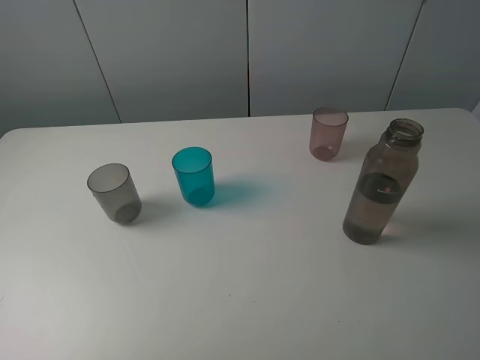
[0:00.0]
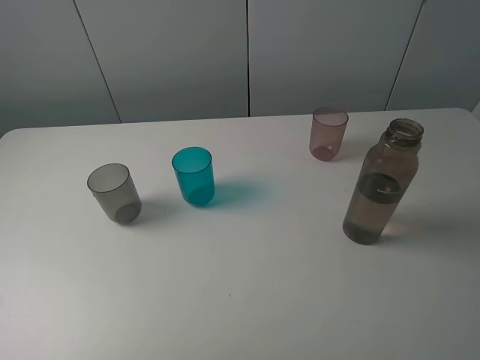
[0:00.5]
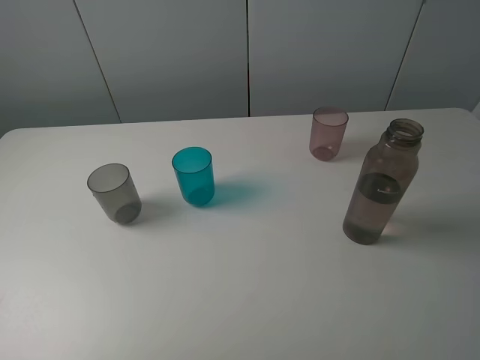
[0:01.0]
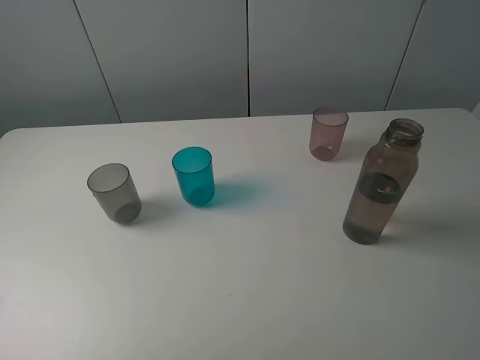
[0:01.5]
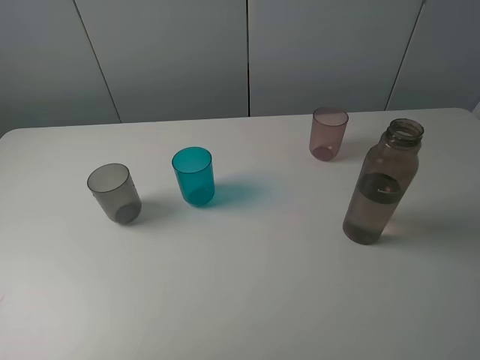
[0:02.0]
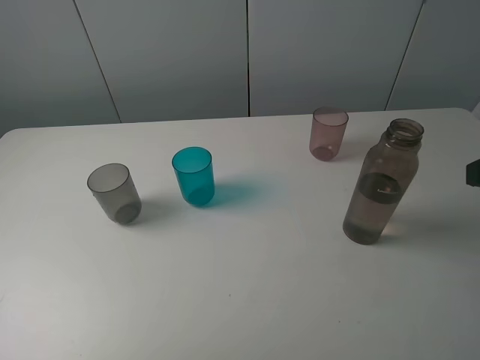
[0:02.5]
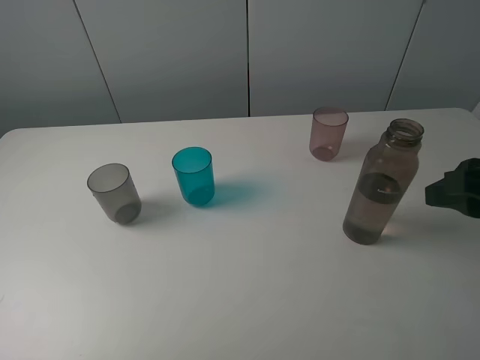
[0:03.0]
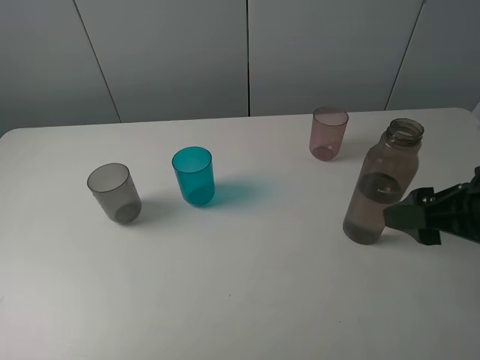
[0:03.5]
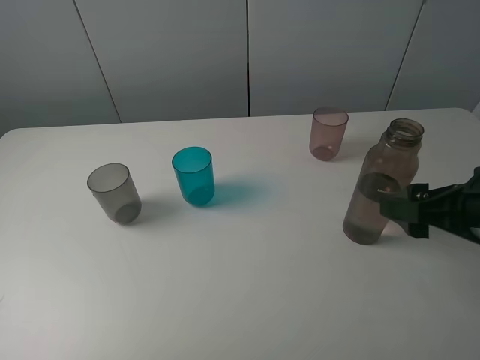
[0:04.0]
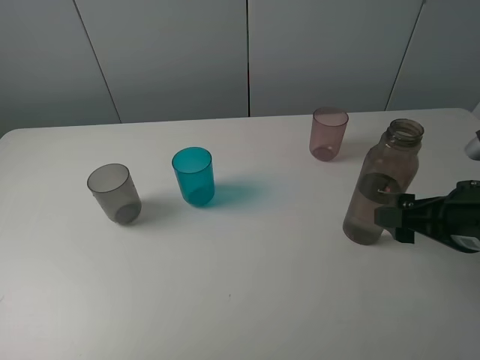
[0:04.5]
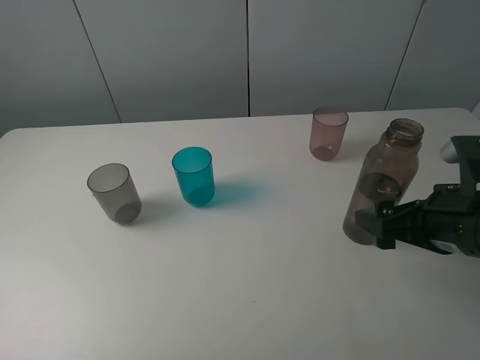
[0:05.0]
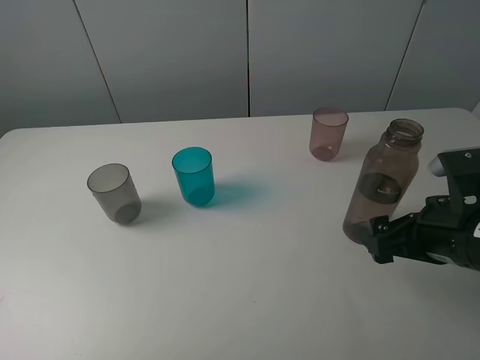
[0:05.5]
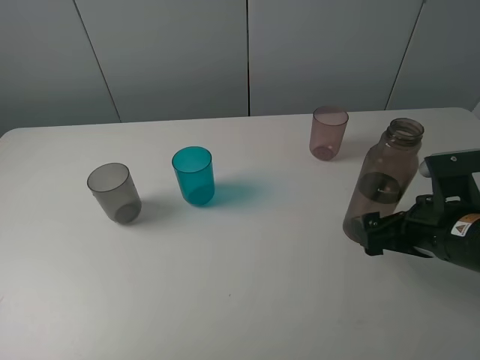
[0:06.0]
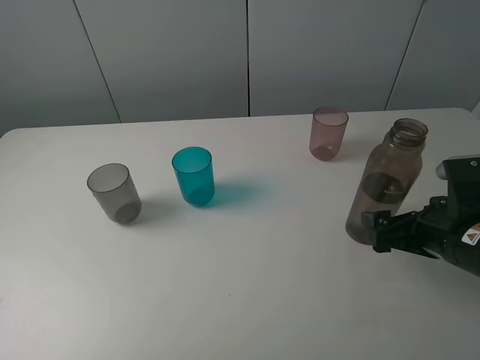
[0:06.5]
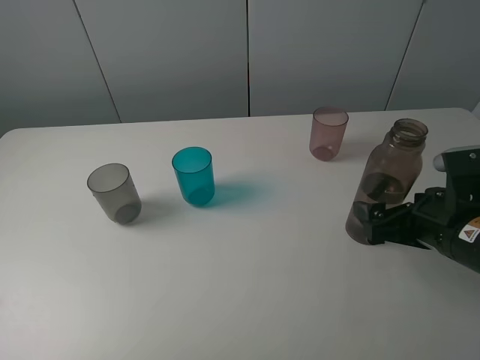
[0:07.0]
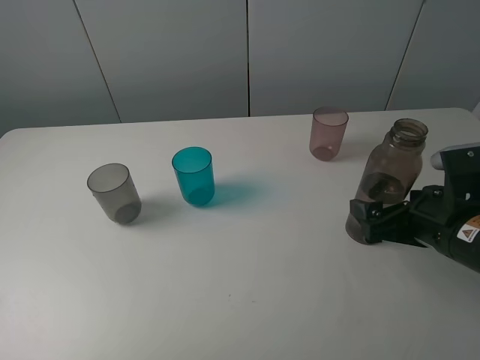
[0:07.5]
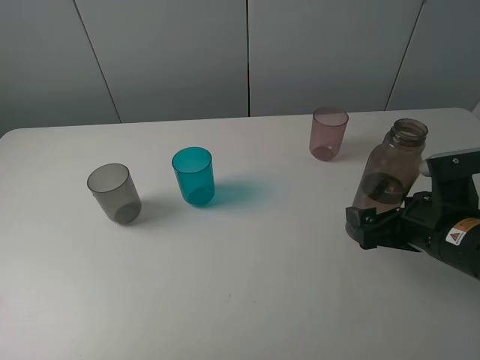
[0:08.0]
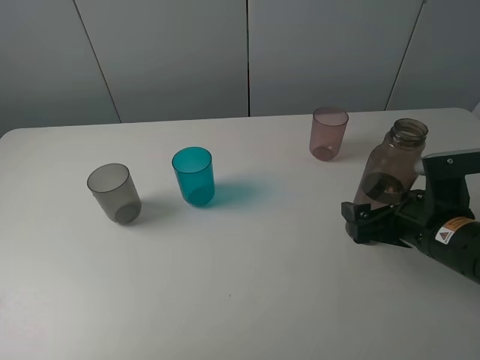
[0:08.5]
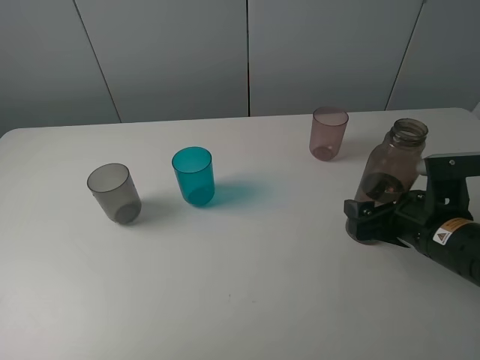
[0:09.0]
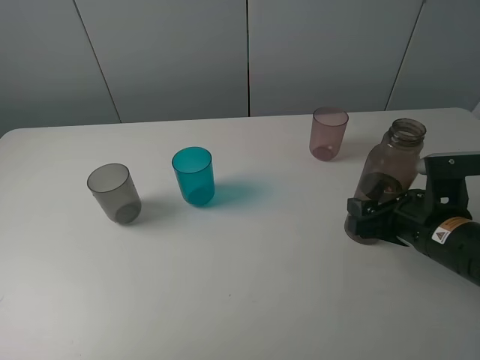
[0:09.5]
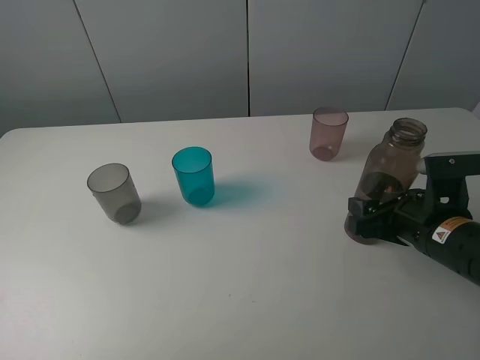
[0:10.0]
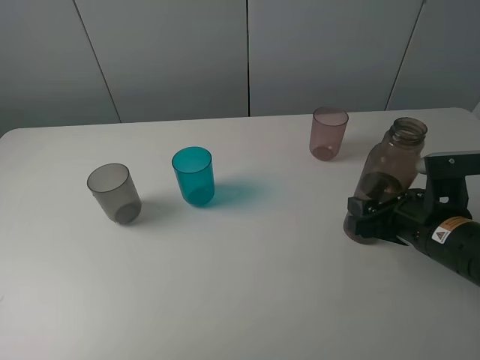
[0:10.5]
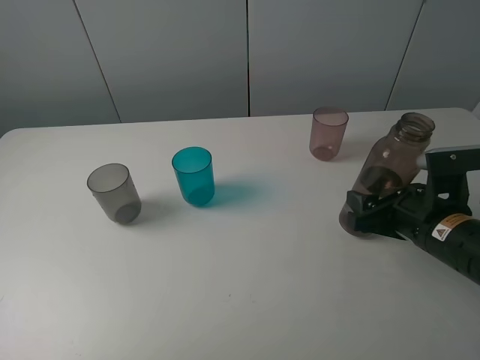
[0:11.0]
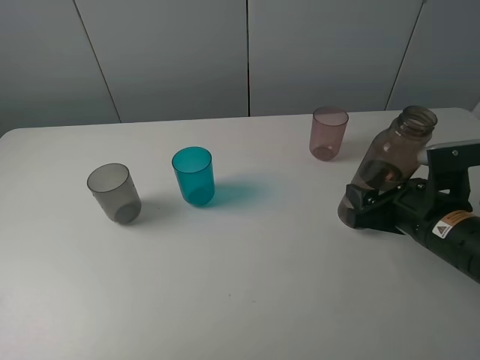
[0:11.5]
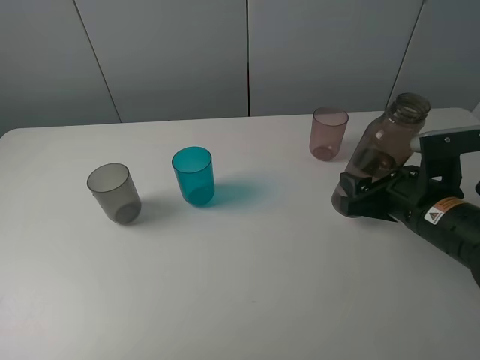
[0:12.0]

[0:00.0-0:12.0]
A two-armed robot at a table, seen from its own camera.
Task of the whole recording: pick up the bottle filled with water and pour water into the middle cup of the three cups.
Step, 0:00.0 to 0:10.0: Grasp the transparent bottle with the right gripper.
0:02.0 to 0:04.0: The right gripper heads downward, covering about 15 cm, and opens.
0:04.0 to 0:06.0: The right gripper is displaced downward by approximately 5 cm.
0:06.0 to 0:08.0: The grippers move only a little.
0:08.0 to 0:10.0: The right gripper closes its fingers.
0:10.0 to 0:12.0: The grippers make only small movements.

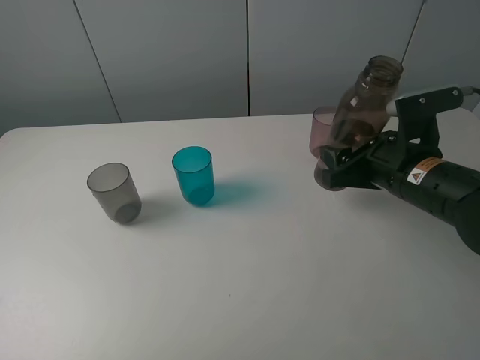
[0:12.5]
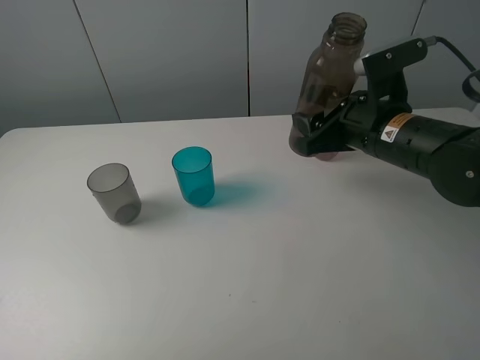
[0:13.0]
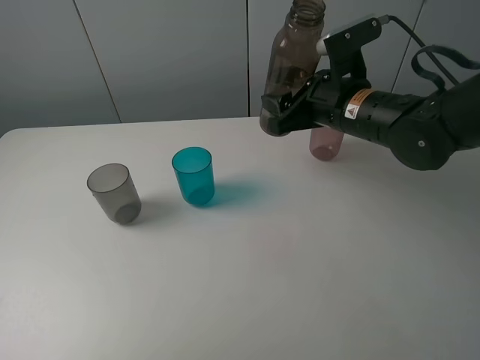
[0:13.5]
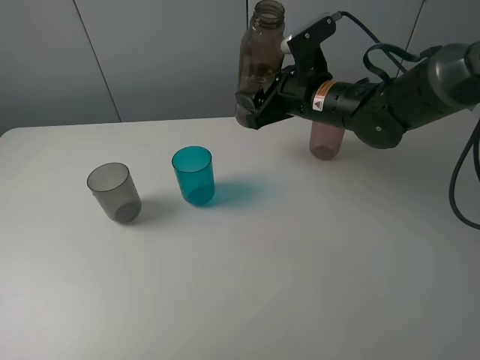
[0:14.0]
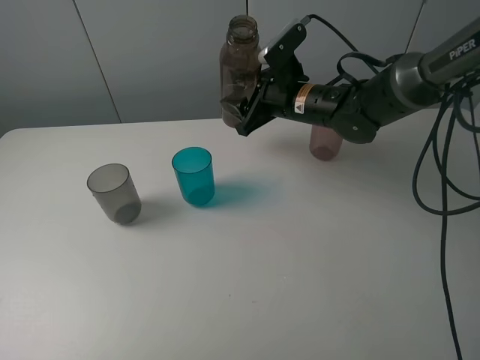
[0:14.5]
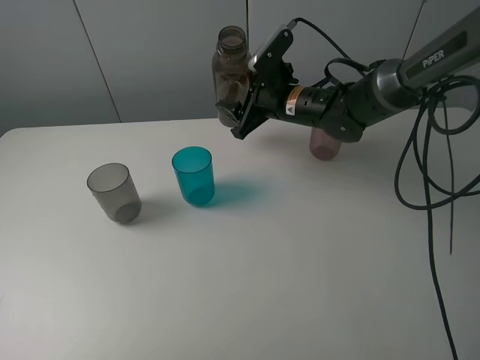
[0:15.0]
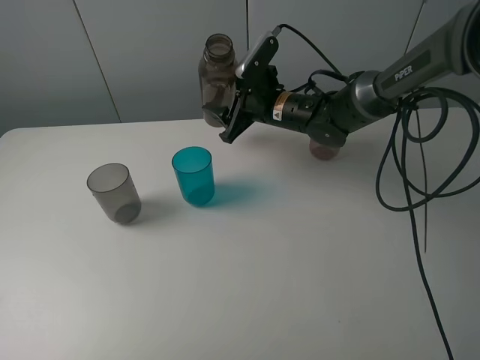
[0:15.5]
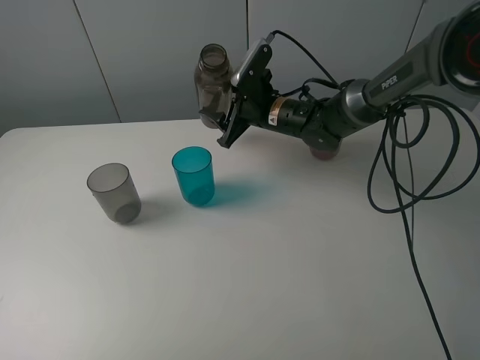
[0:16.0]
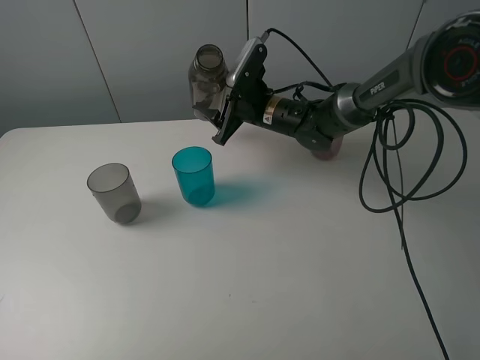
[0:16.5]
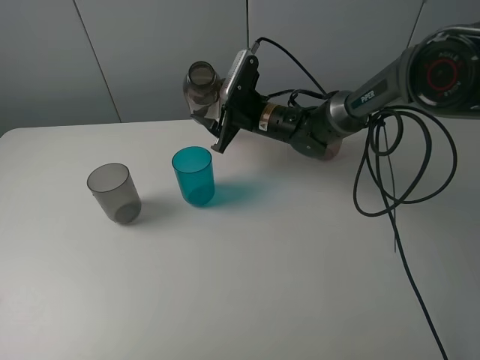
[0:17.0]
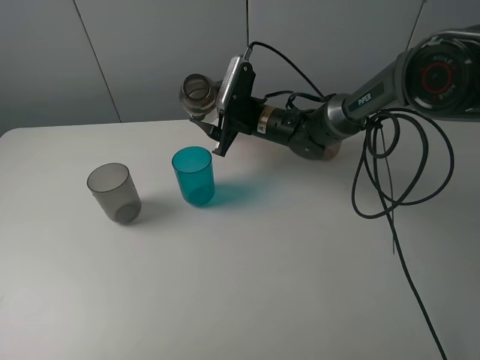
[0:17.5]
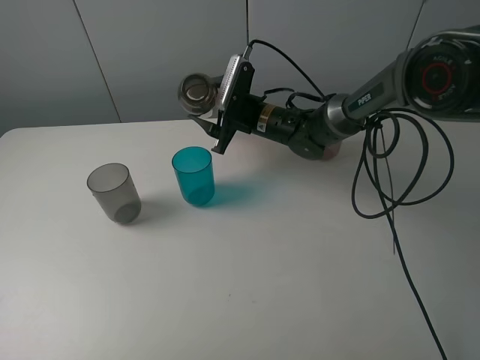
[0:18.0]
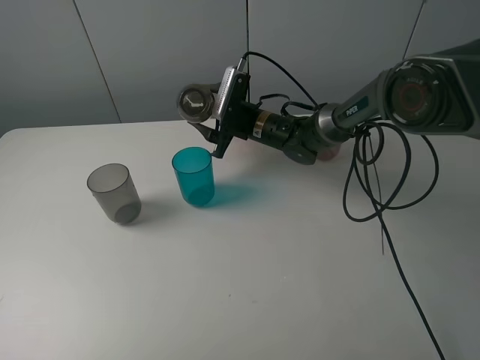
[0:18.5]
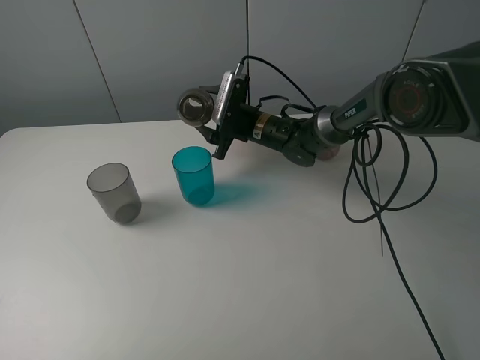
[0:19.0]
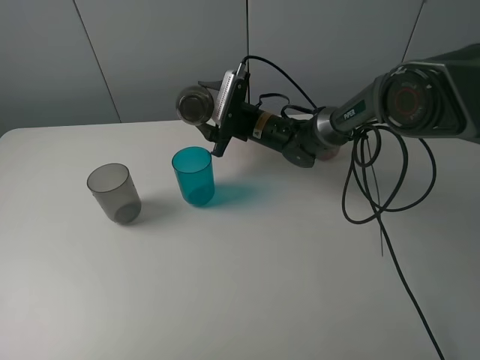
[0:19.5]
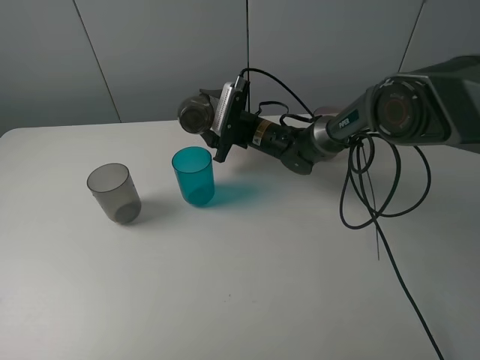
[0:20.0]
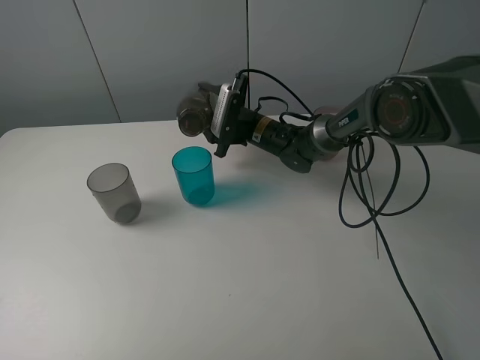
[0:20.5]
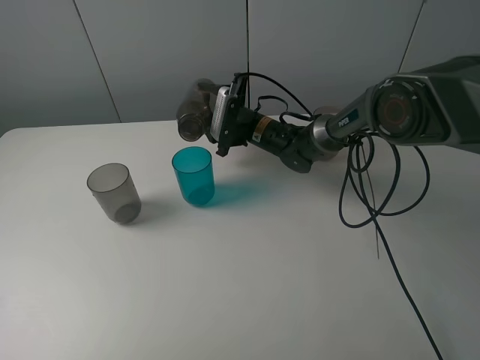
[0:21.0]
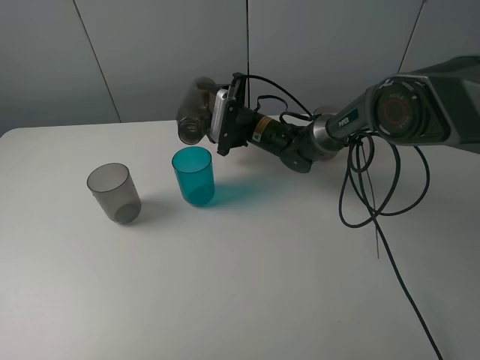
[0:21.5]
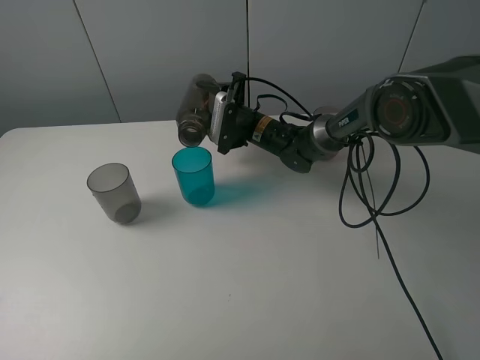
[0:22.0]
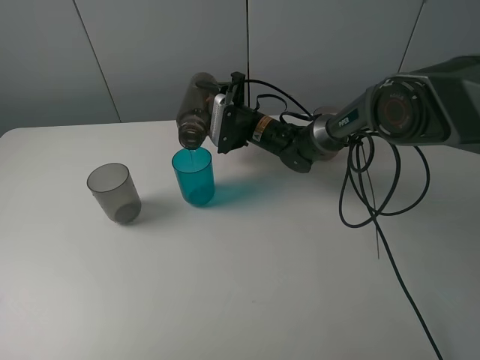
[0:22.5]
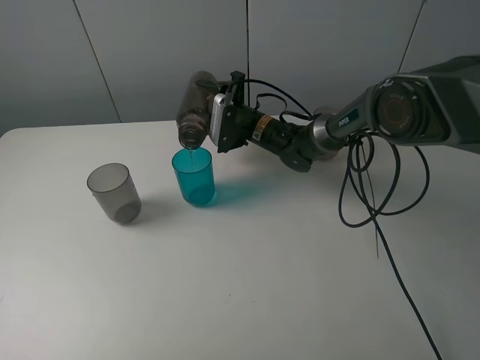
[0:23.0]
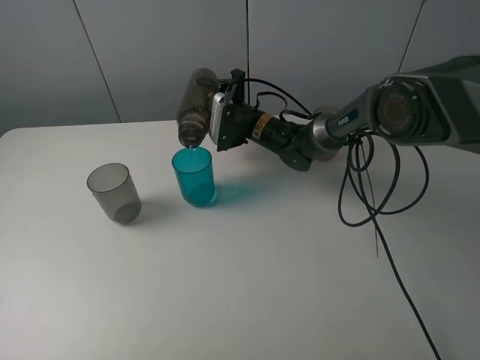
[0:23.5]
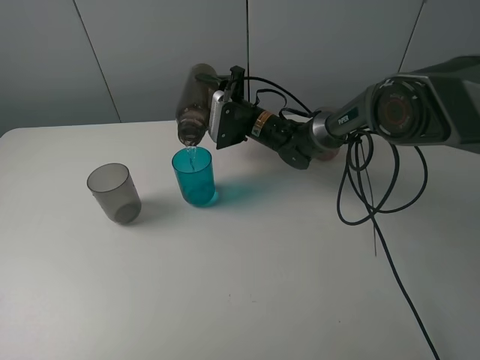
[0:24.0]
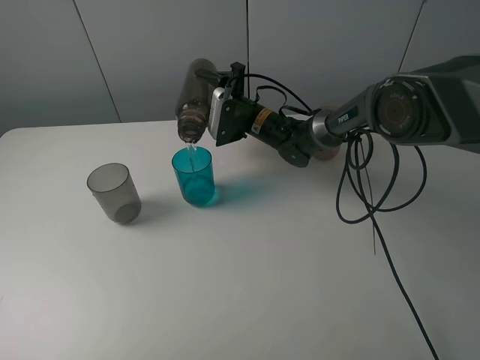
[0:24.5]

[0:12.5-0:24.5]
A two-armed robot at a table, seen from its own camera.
Task of the whole recording: pick up the bottle filled with water and pour water into the middle cup of the three cups.
Step, 0:12.5 to 0:20.5: Pour water from transparent bottle to blue cup with the right gripper.
0:12.5 to 0:14.5: The right gripper is displaced forward and to the left by roughly 20 cm.
0:14.5 to 0:16.5: The right gripper changes place by roughly 5 cm.
0:18.5 to 0:20.5: The grippers stay close to where they were, moving slightly.
0:20.5 to 0:24.5: The grippers move only a little.

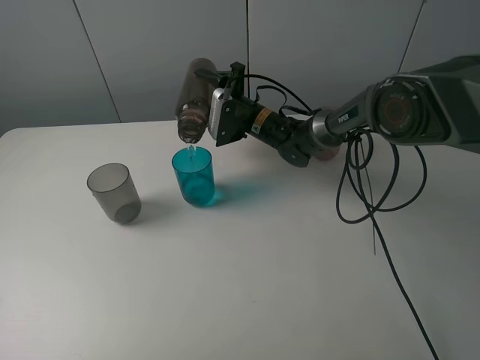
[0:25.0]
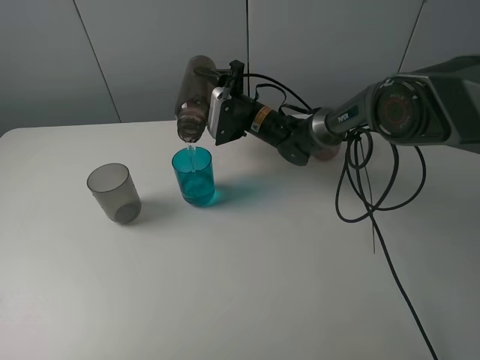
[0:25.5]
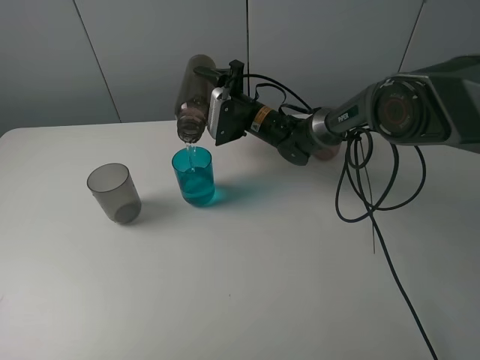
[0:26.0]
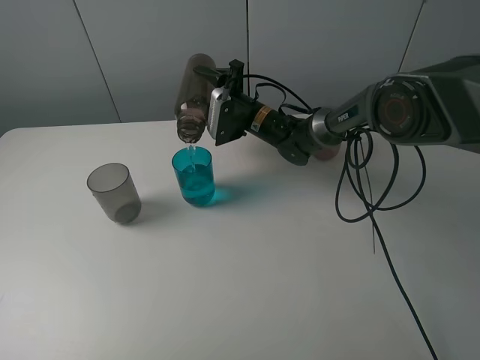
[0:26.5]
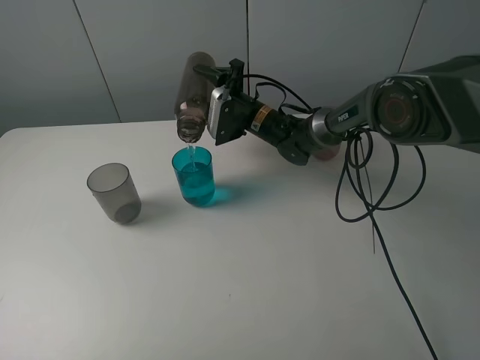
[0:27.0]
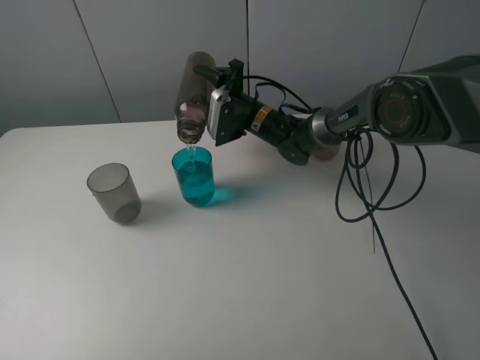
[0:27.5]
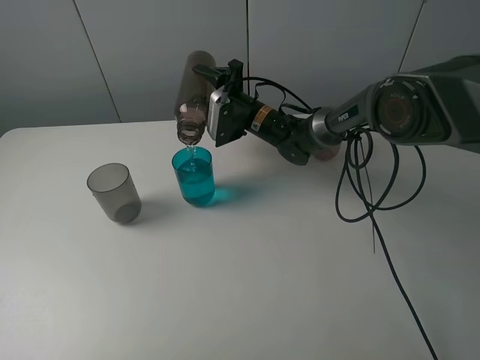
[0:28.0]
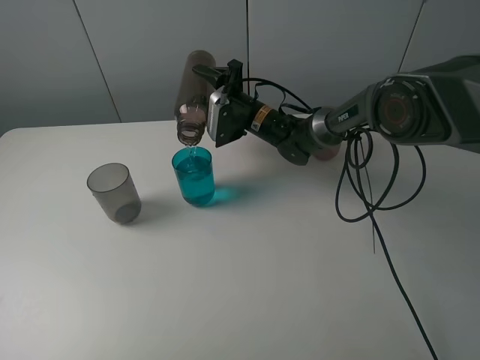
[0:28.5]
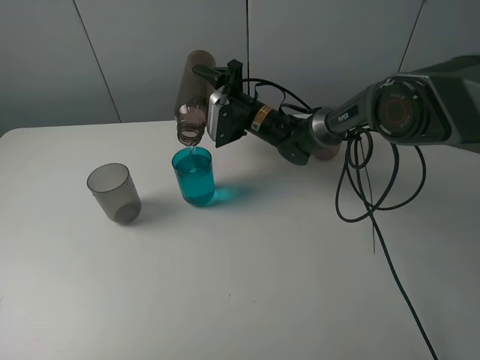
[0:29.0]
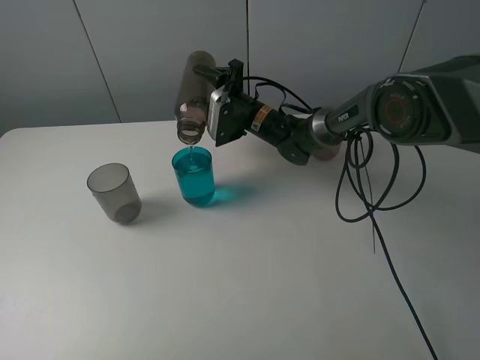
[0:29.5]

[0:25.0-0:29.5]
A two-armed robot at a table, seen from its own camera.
Task of the whole recording: pick up the bottle filled with water and pour water into the middle cup of the three cups.
0:25.0 to 0:27.0: Both grippers stay about where they are.
0:27.0 to 0:29.5: Neither gripper changes place.
